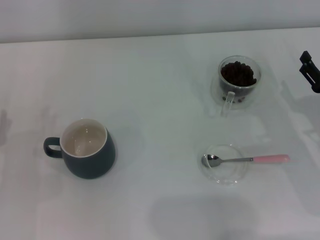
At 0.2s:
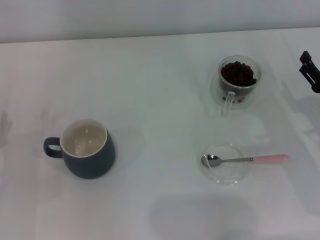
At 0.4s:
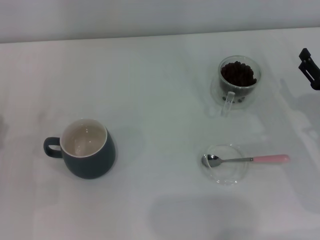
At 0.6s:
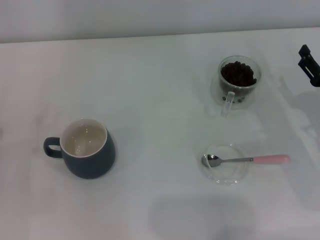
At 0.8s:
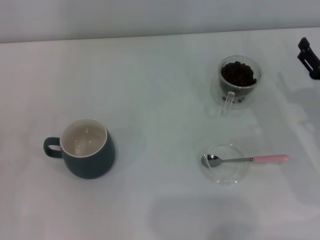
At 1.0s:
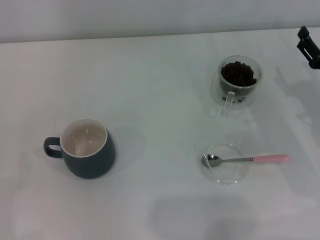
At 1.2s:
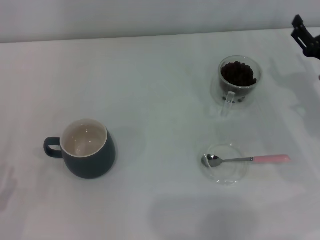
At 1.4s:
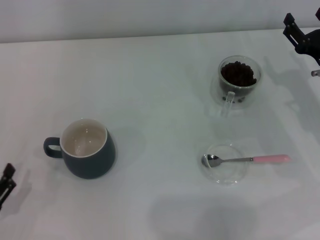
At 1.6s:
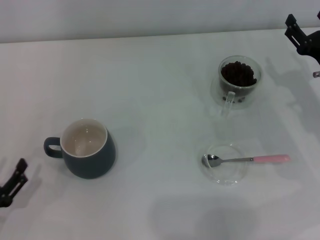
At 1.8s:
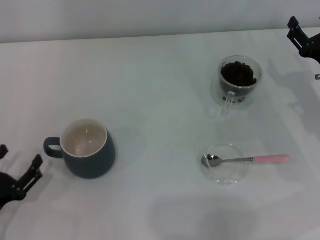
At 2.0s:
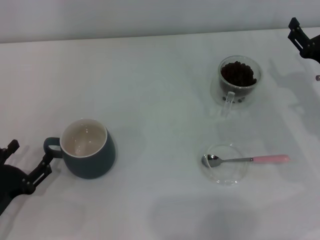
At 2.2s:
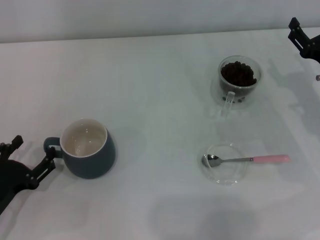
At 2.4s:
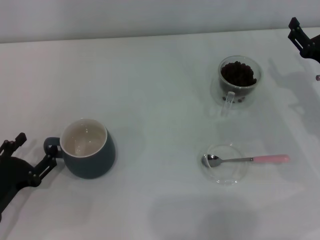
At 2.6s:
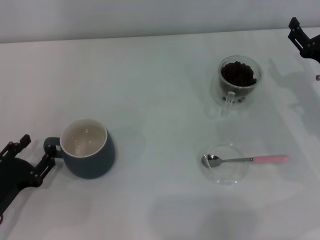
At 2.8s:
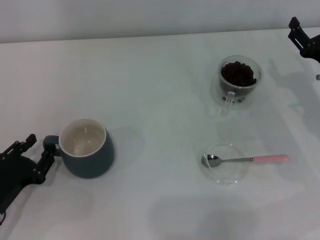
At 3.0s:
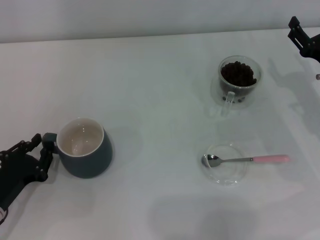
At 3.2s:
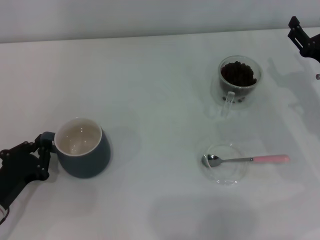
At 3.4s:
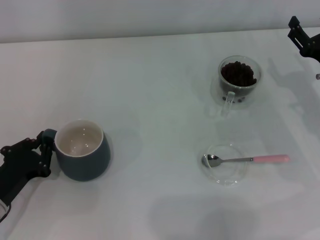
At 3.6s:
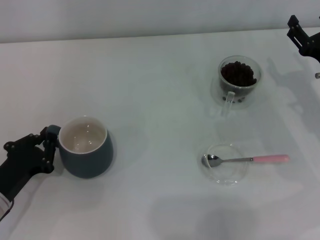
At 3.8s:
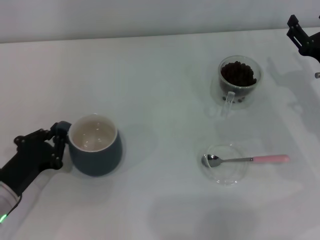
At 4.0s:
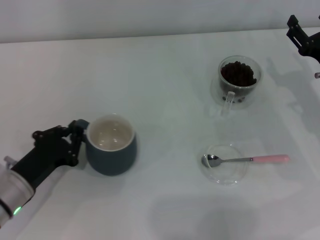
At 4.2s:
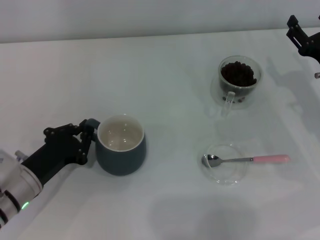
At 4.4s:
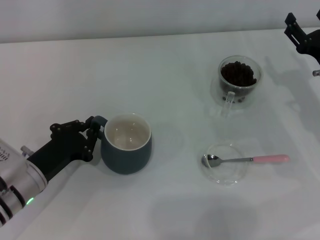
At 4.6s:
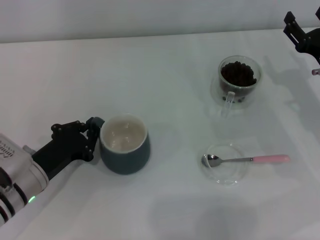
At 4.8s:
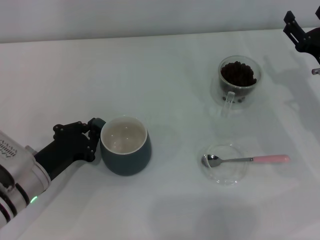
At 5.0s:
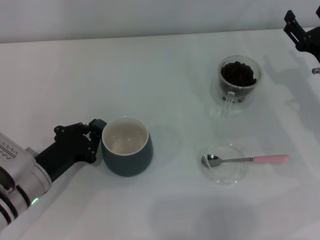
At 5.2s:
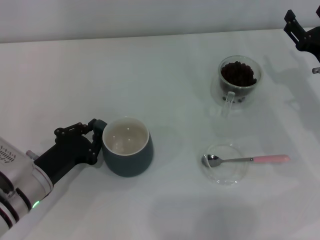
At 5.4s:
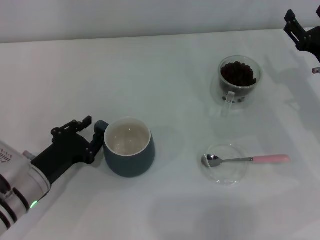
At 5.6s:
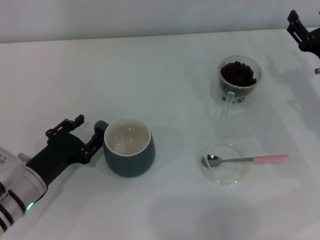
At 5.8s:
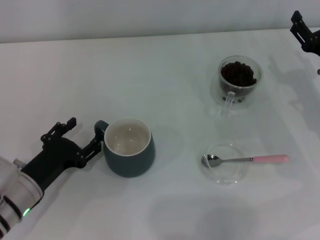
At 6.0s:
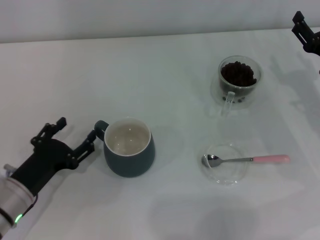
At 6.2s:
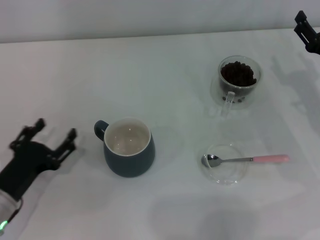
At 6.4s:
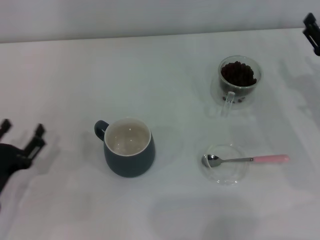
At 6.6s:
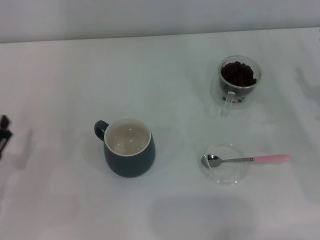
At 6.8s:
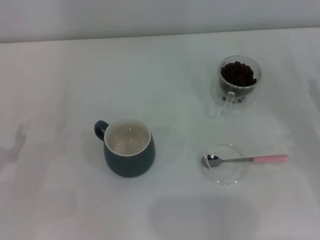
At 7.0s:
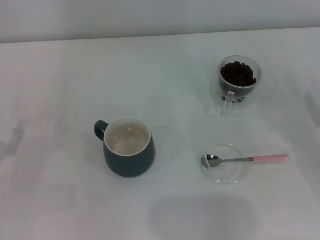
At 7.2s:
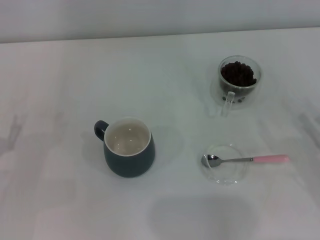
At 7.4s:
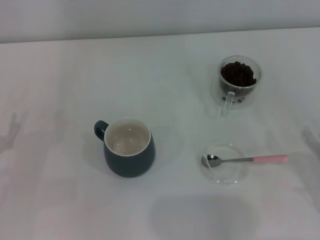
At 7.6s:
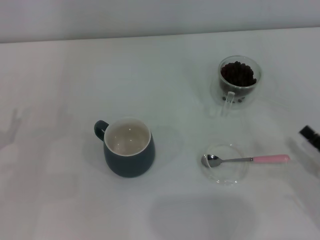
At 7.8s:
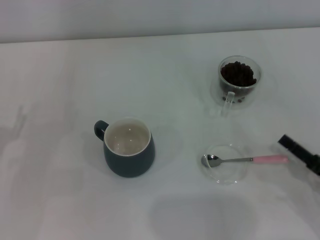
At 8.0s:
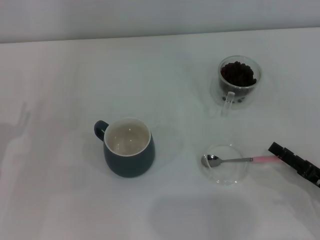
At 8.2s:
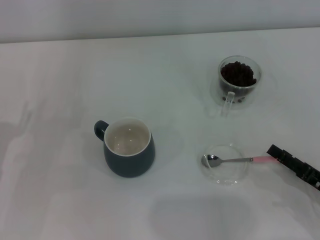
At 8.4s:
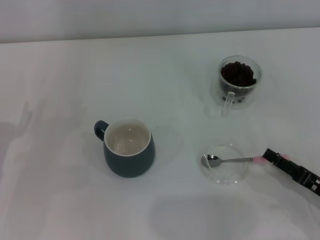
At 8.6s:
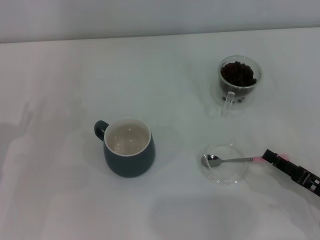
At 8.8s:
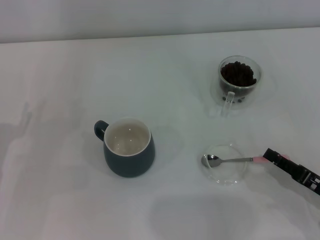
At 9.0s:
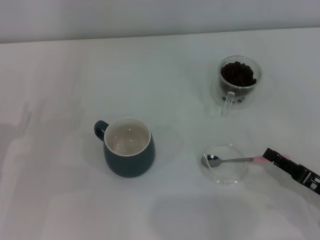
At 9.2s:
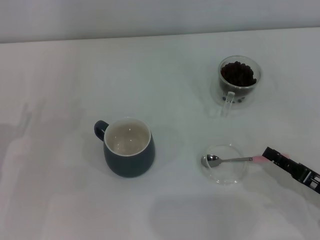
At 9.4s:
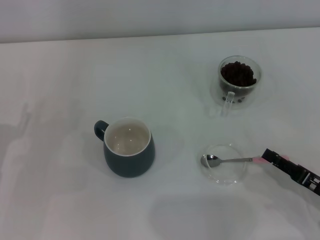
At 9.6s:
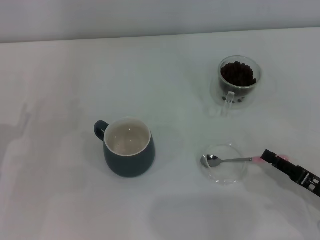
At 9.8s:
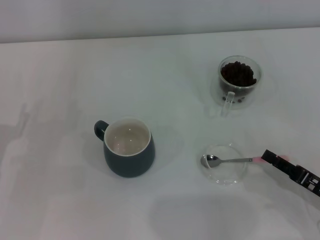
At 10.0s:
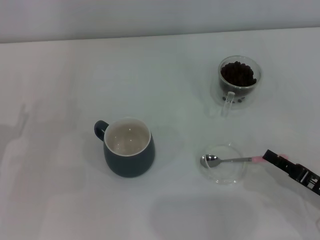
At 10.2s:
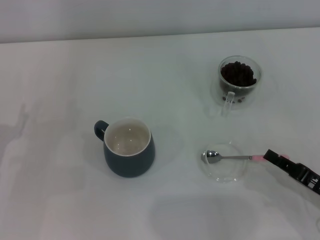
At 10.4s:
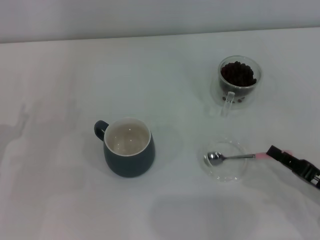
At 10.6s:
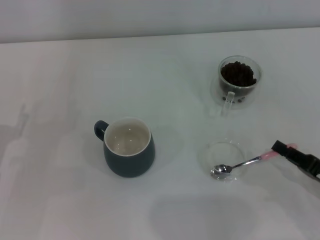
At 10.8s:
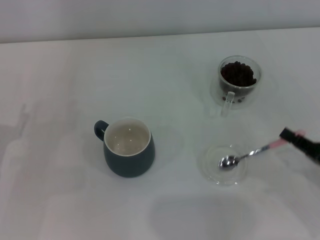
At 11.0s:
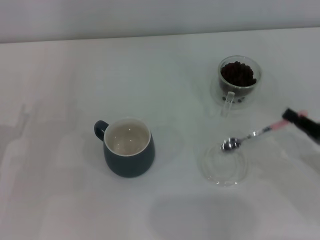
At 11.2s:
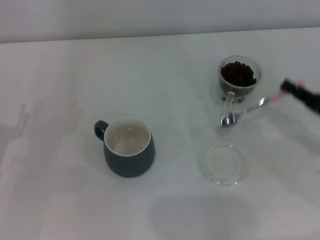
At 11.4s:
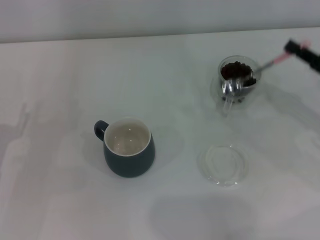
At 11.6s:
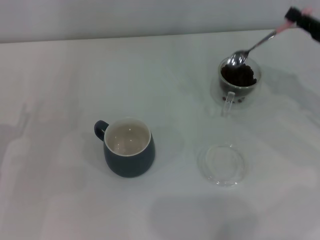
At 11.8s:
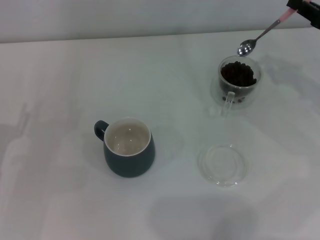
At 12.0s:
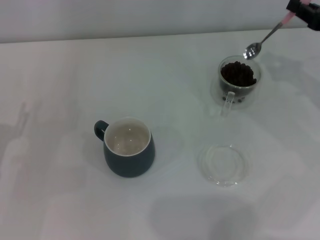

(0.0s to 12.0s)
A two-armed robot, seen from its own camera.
Task of the whole recording: Use a pink spoon to take out the coffee beans from the glass and pour them into the gray cup.
Step, 0.0s - 6.0s: Move the cup to the center of view with the left gripper.
Step, 6.2s - 10.8s: Pick up the spoon with the right gripper.
0.0s - 1.6s: The right gripper heads forward, covering some 5 cm. Meanwhile the left gripper is displaced backward by about 10 cm.
1.6s - 3.0s: The left gripper shifts roughly 5 cm forward, and closes.
3.0s - 4.4s: The left gripper heads to the right, covering roughly 5 cm, and closes.
4.4s - 6.0s: The left gripper opens up.
6.0s - 7.6s: The right gripper heads backward, covering roughly 15 cm. Meanwhile the left gripper is displaced to the left by some 10 cm.
7.6s - 9.0s: The right gripper closes its fingers.
9.0s - 10.4s: The right gripper closes its fingers.
10.4s - 12.0s: The right gripper shifts some 20 cm forward and upward.

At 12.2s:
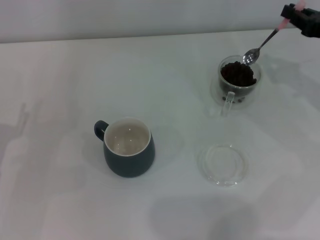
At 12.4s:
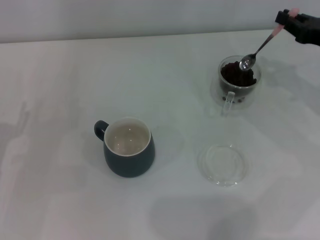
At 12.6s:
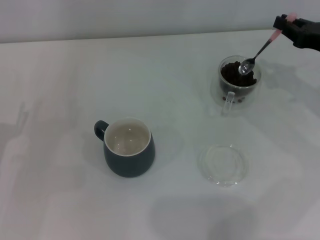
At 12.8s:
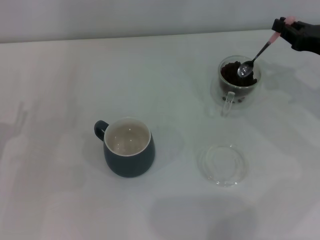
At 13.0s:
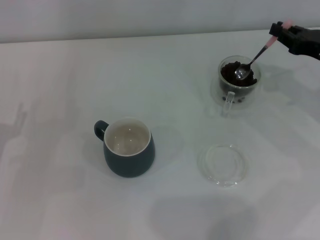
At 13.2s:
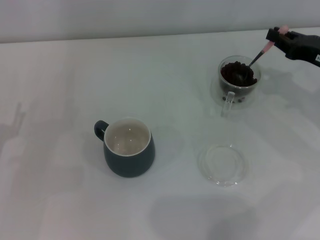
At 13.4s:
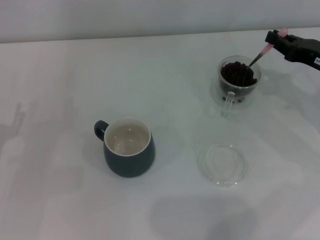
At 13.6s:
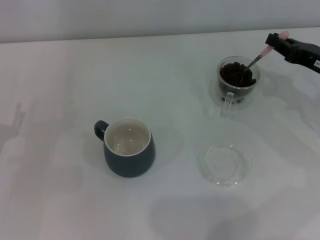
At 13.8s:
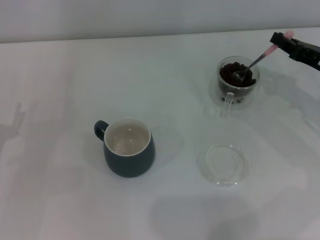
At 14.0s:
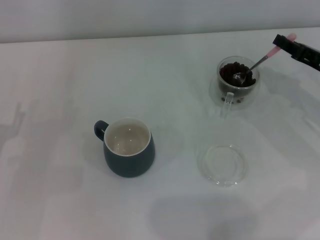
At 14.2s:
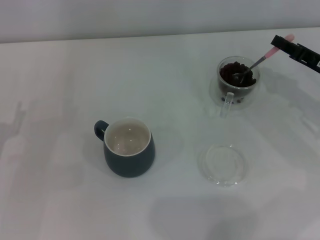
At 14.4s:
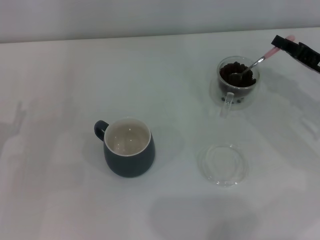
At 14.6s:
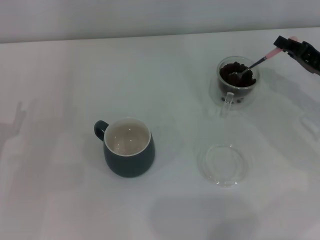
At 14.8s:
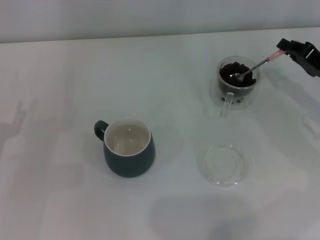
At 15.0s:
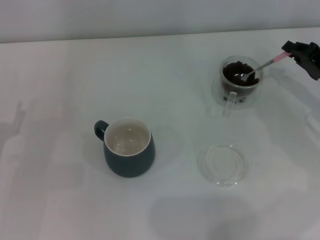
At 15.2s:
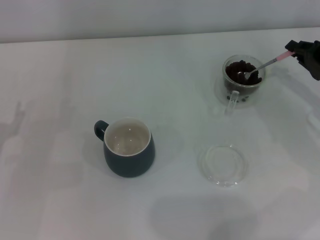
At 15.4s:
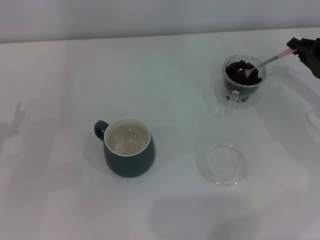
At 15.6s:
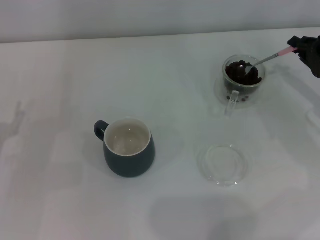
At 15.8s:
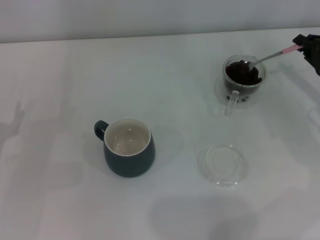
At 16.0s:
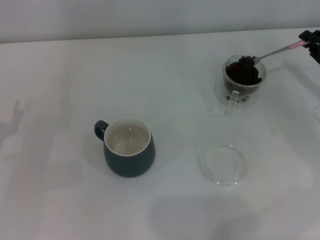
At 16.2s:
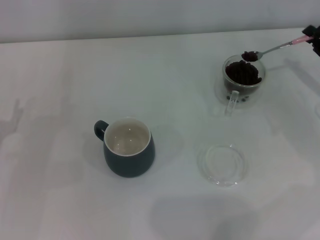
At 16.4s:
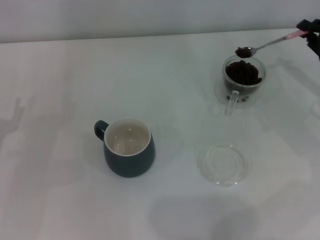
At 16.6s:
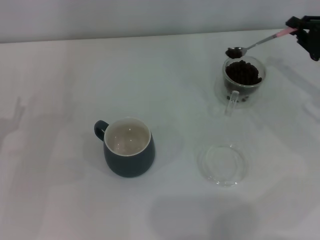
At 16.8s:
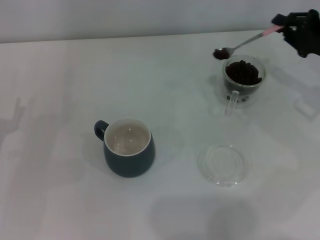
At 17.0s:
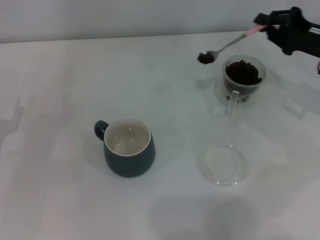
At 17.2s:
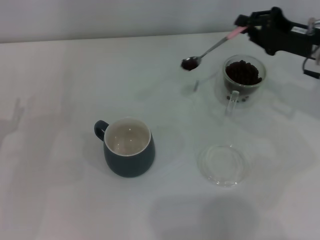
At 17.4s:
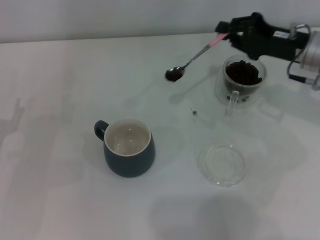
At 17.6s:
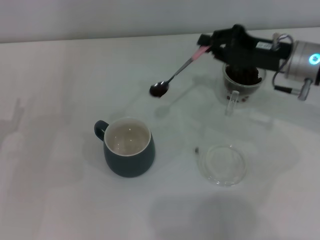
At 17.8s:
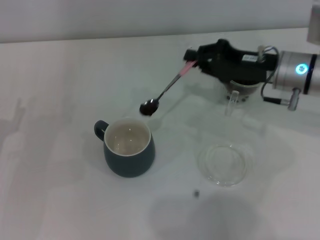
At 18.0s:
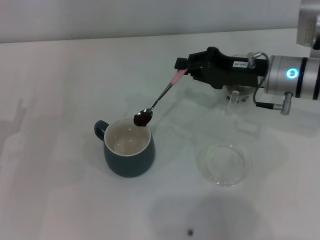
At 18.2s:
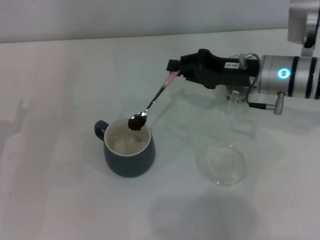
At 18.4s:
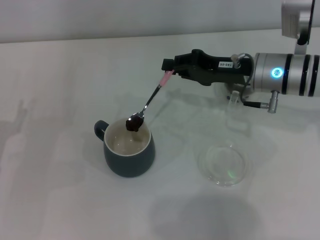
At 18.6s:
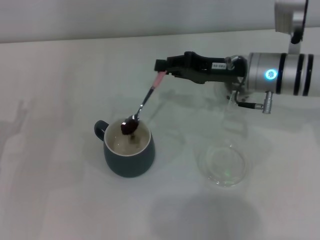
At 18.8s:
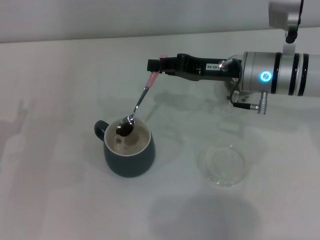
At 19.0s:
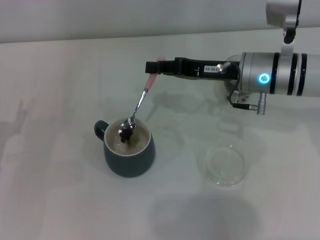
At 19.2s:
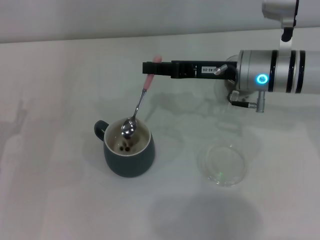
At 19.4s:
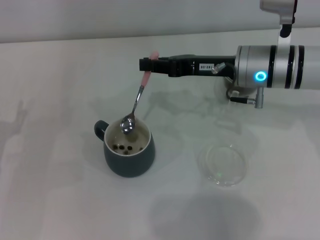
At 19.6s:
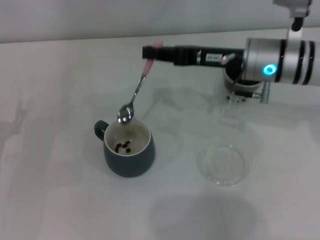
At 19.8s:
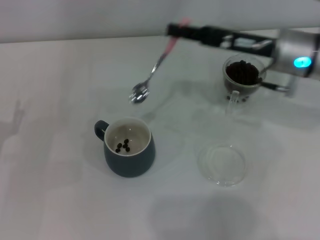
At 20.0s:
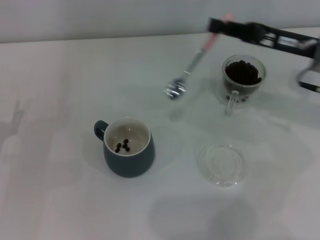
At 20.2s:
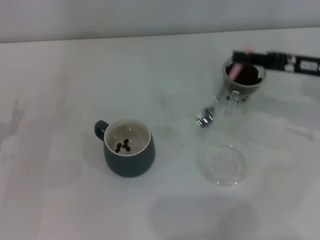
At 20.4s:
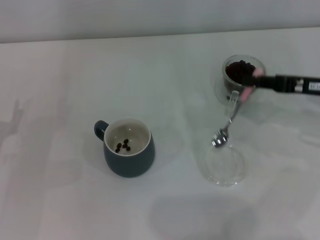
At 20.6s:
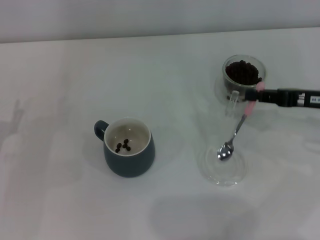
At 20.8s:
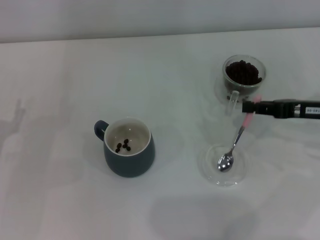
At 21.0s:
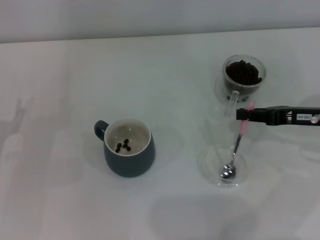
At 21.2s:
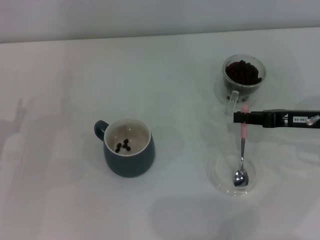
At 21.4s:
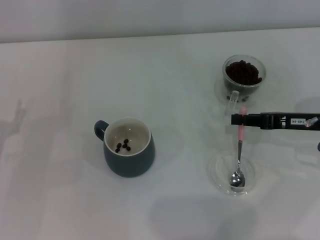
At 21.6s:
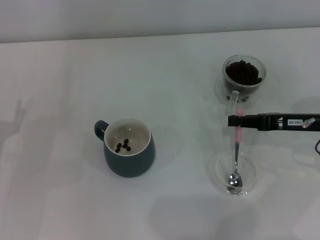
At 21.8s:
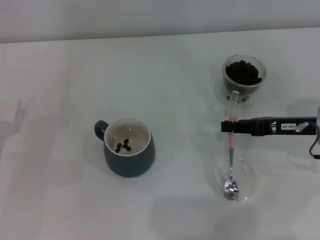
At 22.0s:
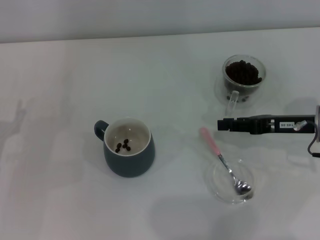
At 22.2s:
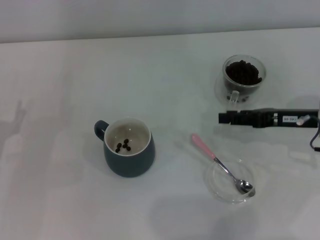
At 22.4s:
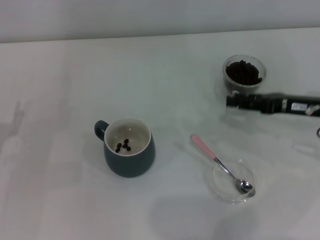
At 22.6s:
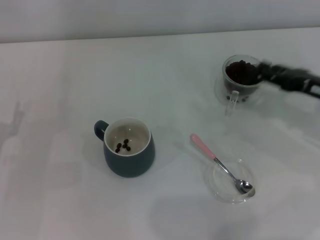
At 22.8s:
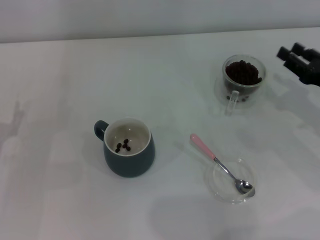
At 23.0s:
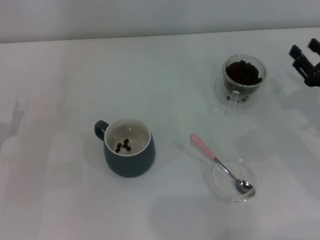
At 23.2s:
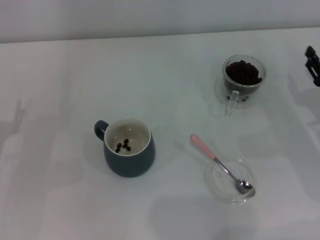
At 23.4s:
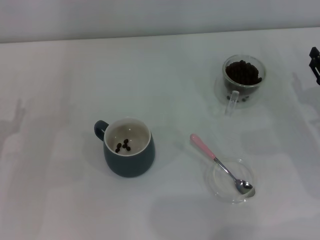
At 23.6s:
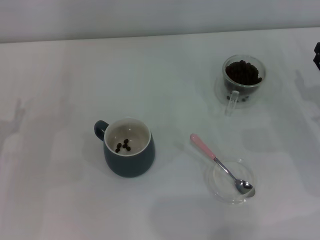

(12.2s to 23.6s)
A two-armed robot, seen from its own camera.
Task of the whole recording: Use a pink spoon to take out the coffee beans from the glass and pour them into the gray cup.
Step, 12.2s - 19.6s: Scoop a spoonful of beans into the cup with the right gripper.
Step, 19.8s - 22.2s: Place the spoon back in its original place with the right gripper.
12.2s - 13.6s: The grippers make only small movements.
15.0s - 16.4s: The grippers make only small movements.
16.4s - 17.8s: The right gripper travels to the left by approximately 15 cm.
17.8s - 19.4s: The right gripper moves to the left, some 5 cm.
19.4s - 20.8s: The right gripper is displaced to the right and backward by some 15 cm.
20.8s - 22.2s: The grippers stay close to where they were, moving slightly.
22.2s - 23.6s: The right gripper moves to the right, roughly 5 cm.
